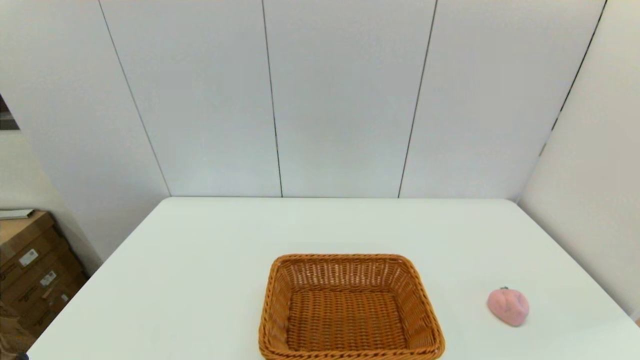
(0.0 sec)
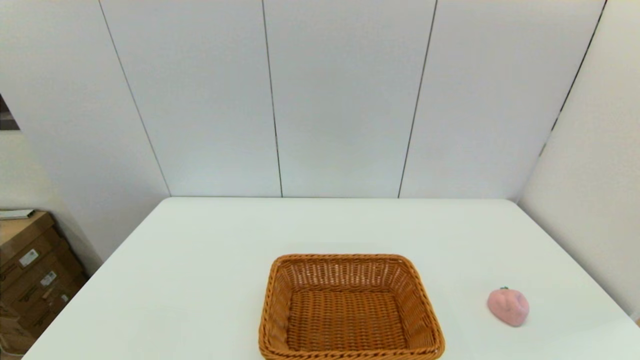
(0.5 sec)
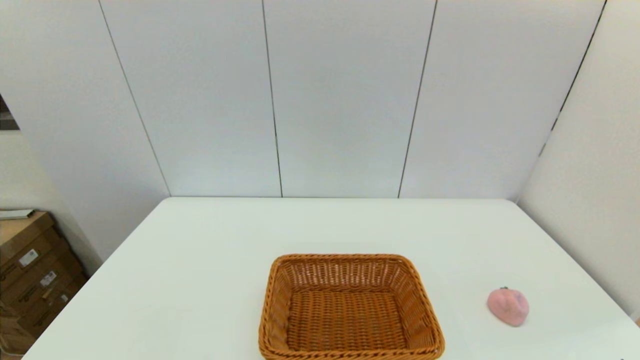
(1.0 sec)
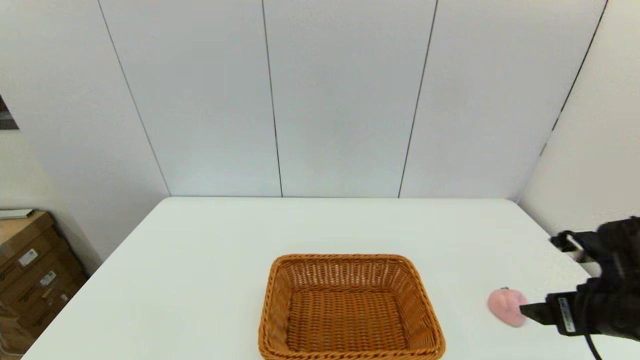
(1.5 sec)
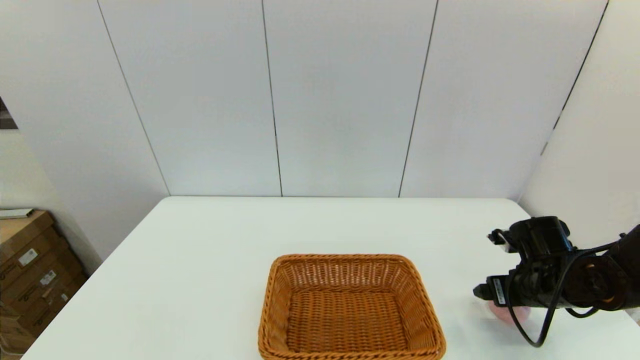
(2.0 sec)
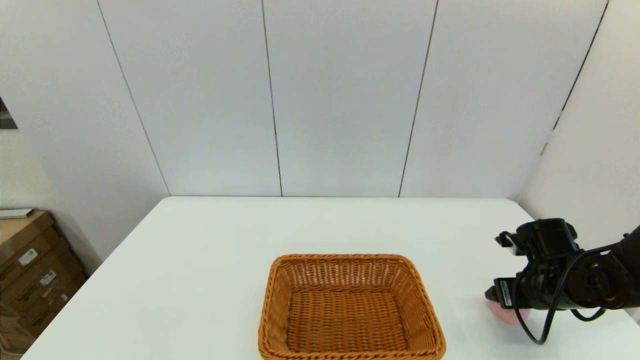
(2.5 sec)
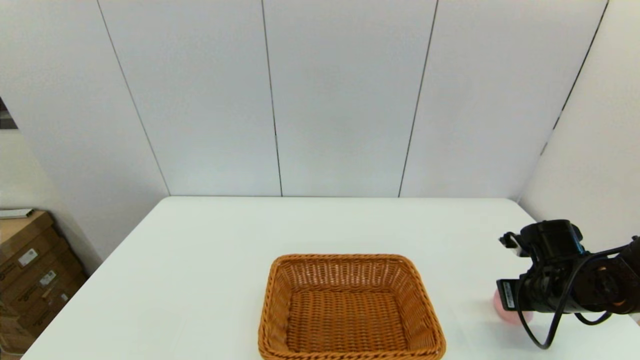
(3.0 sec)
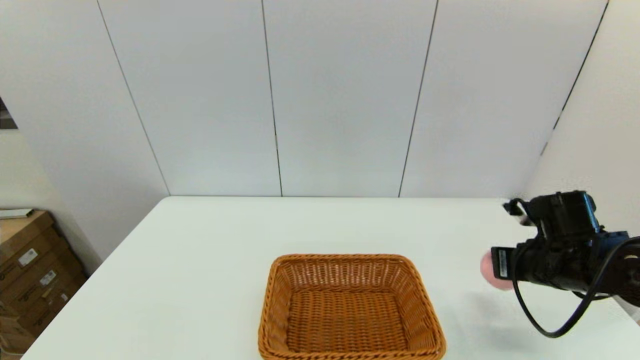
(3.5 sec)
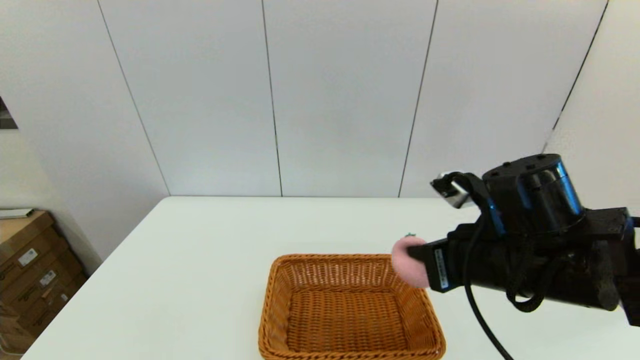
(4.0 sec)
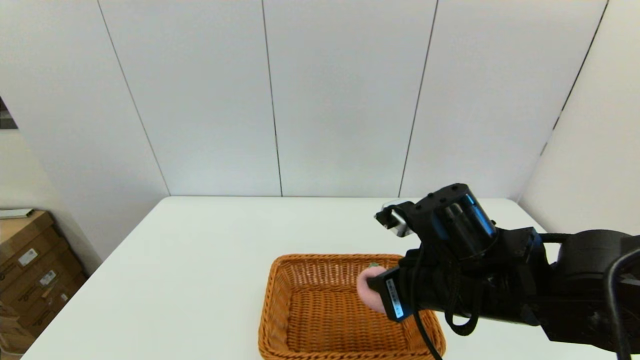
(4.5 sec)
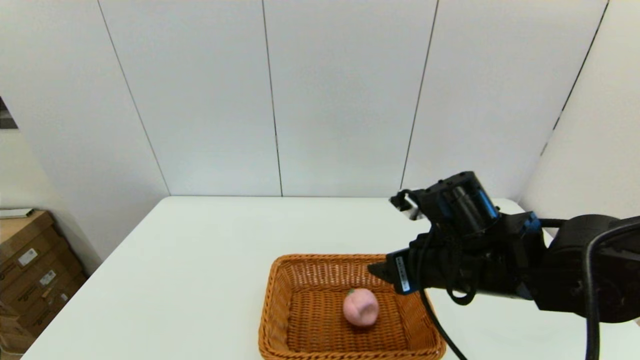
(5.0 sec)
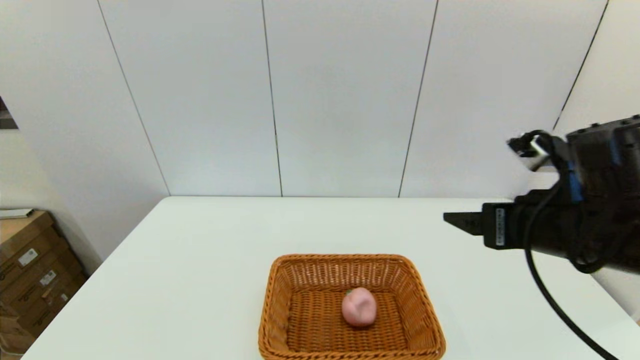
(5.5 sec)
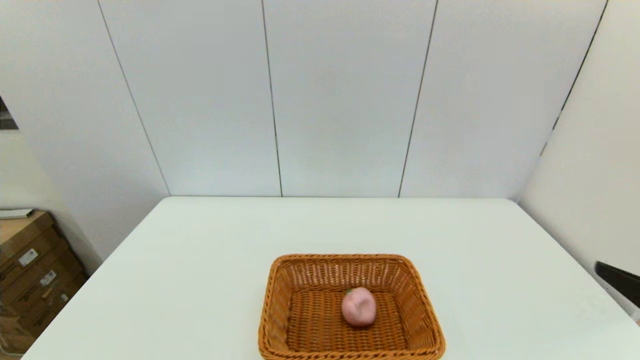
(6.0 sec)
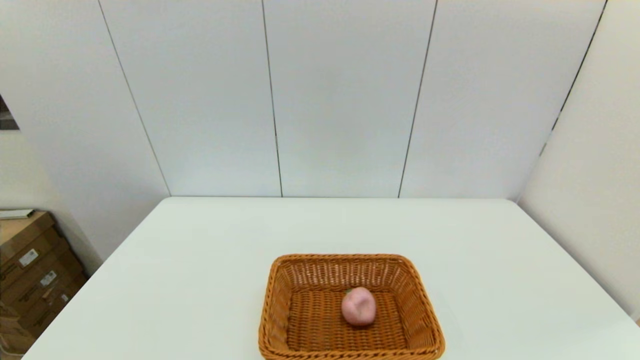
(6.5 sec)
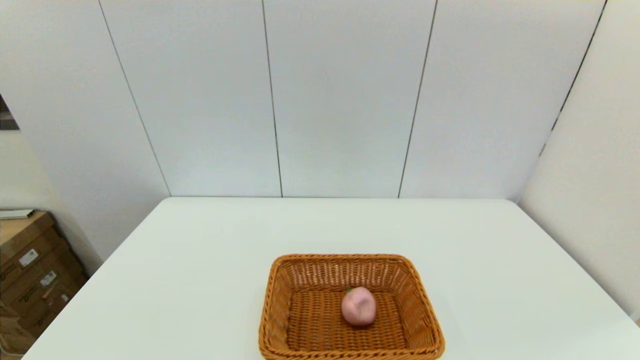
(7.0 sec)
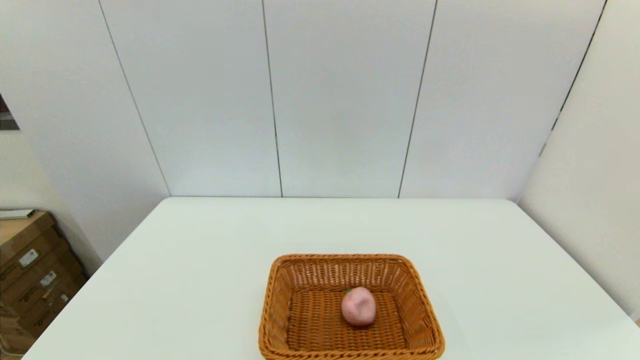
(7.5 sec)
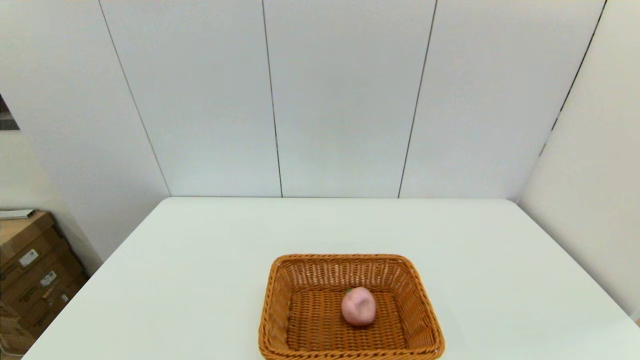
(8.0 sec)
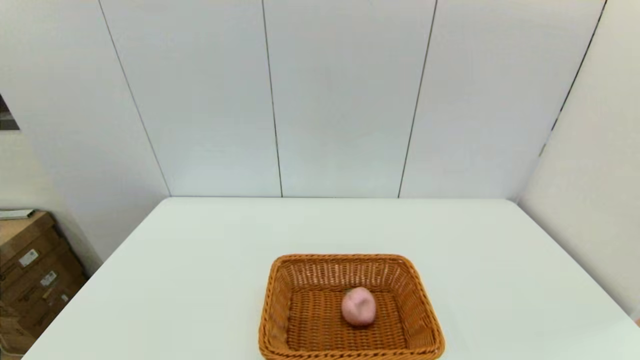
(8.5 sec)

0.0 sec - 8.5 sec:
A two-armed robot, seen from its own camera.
Step, 0.0 sec - 3.0 sec: Grasp the peach with the right gripper.
Step, 3.5 sec - 4.5 sec: Place the peach into the light basket with the right gripper.
0.0 sec - 2.0 sec: The right gripper travels forward by approximately 30 cm.
2.0 sec - 4.0 sec: The right gripper heads to the left, upward and backward, covering roughly 25 cm, and closes its fingers.
4.0 sec - 6.5 sec: The right gripper heads backward and to the right, covering some 25 cm, and opens up.
